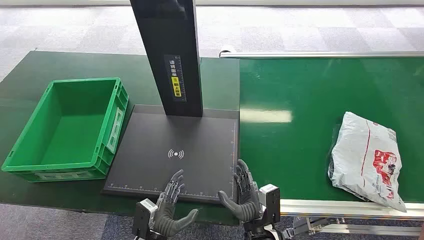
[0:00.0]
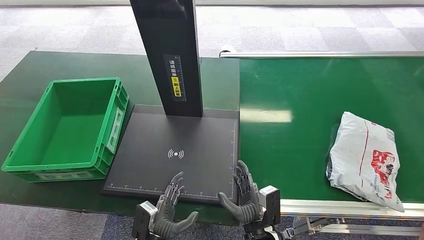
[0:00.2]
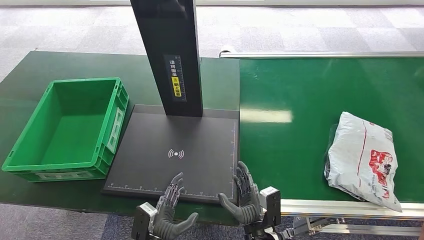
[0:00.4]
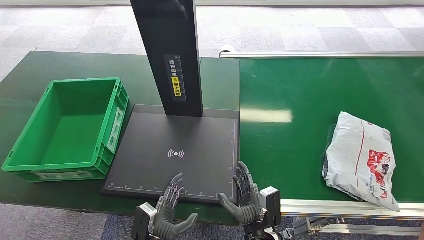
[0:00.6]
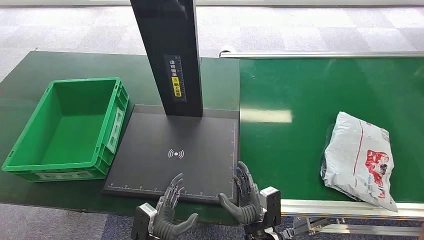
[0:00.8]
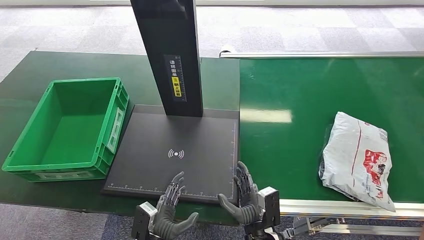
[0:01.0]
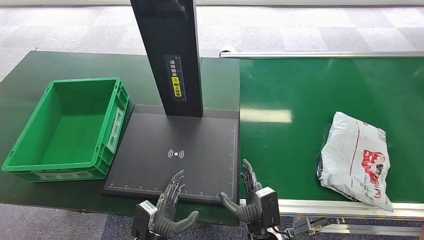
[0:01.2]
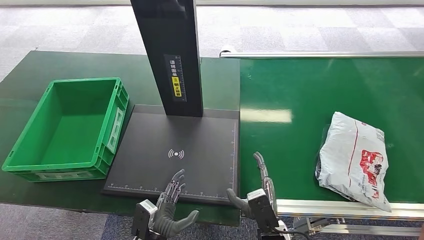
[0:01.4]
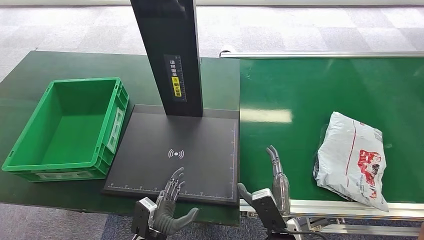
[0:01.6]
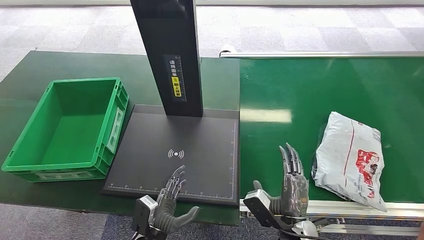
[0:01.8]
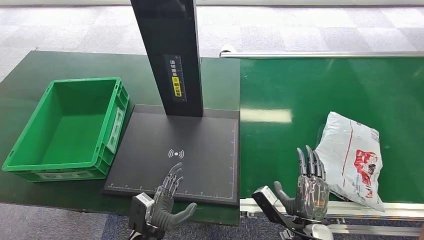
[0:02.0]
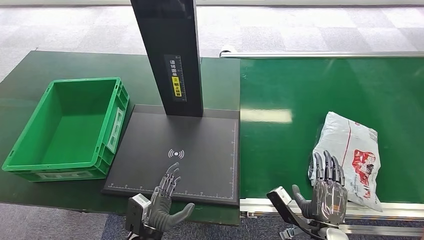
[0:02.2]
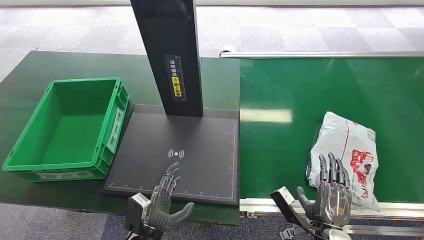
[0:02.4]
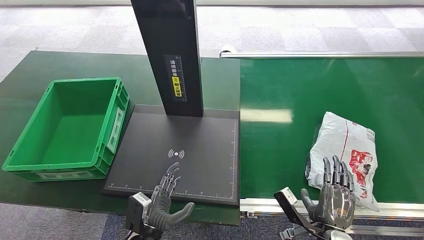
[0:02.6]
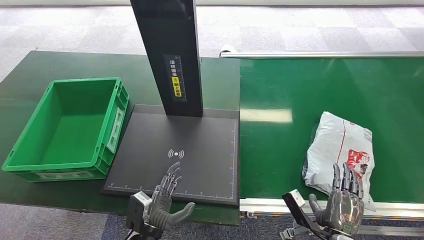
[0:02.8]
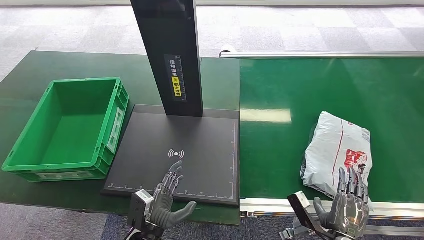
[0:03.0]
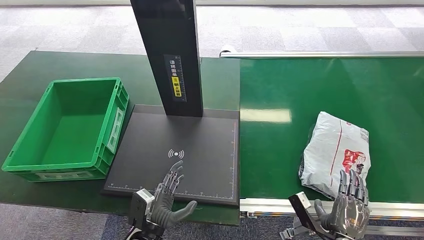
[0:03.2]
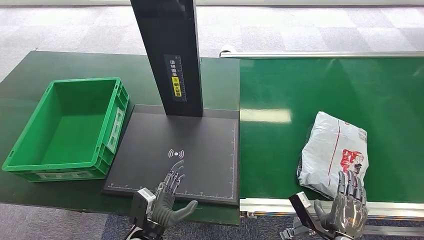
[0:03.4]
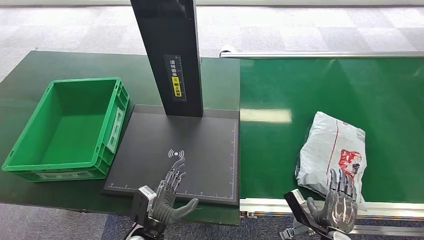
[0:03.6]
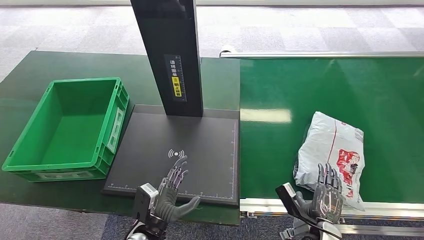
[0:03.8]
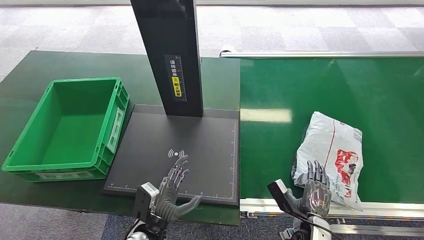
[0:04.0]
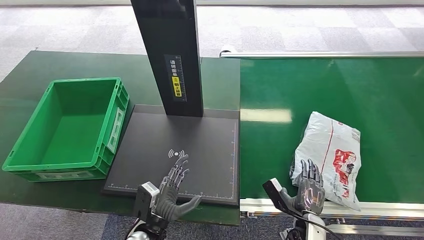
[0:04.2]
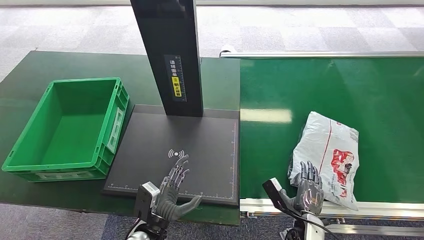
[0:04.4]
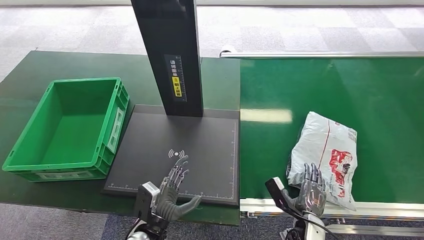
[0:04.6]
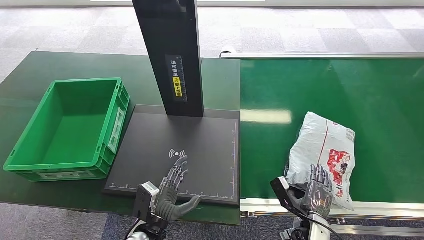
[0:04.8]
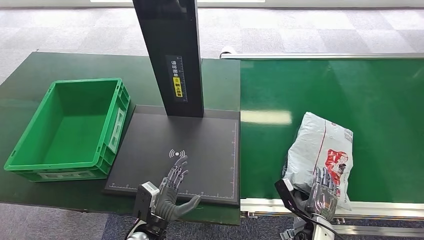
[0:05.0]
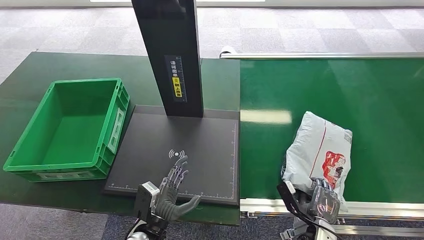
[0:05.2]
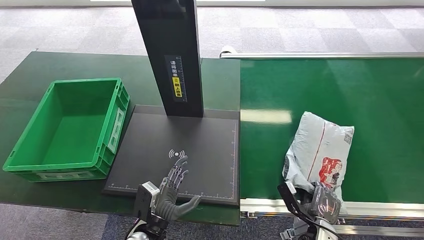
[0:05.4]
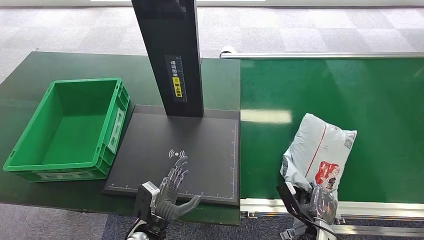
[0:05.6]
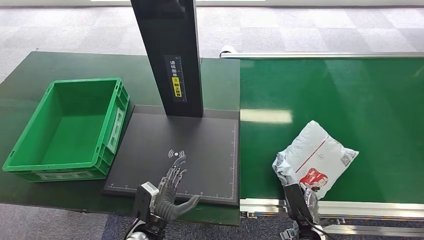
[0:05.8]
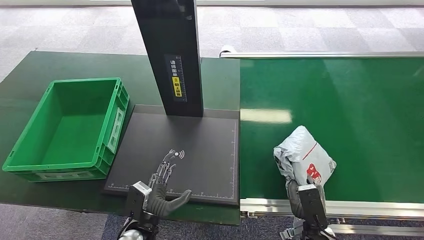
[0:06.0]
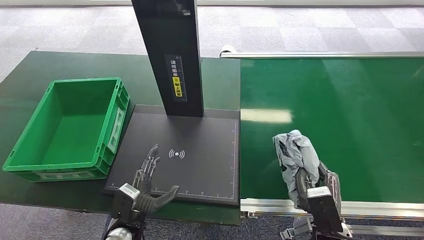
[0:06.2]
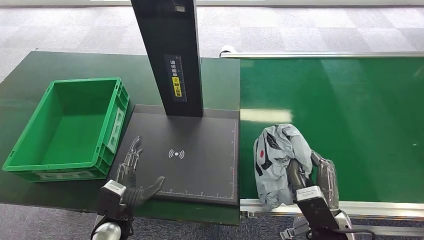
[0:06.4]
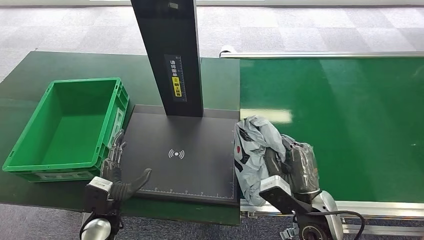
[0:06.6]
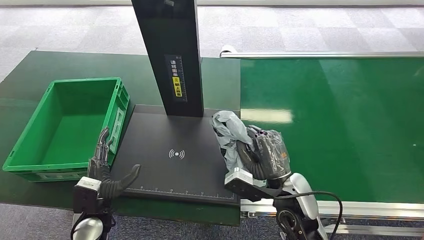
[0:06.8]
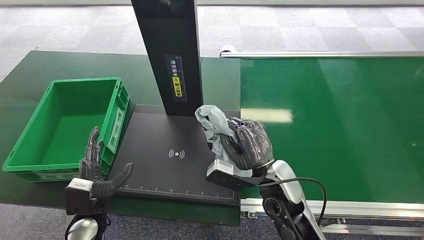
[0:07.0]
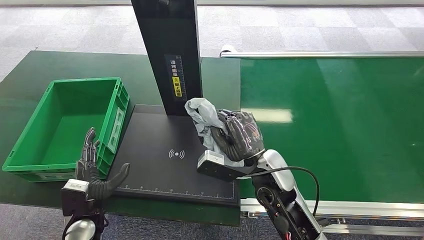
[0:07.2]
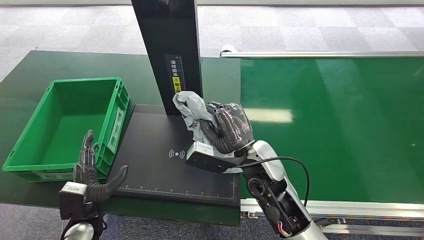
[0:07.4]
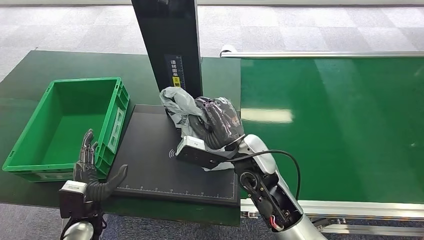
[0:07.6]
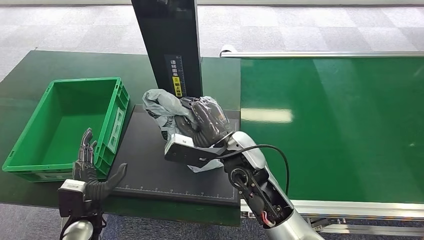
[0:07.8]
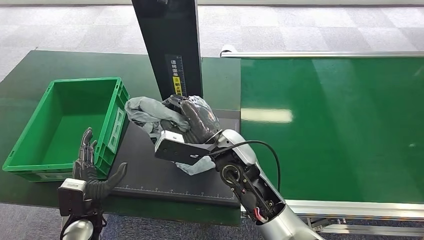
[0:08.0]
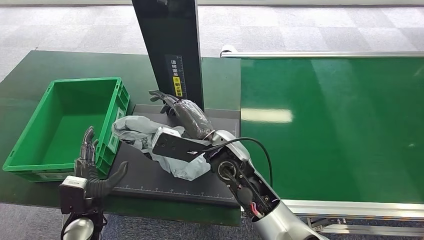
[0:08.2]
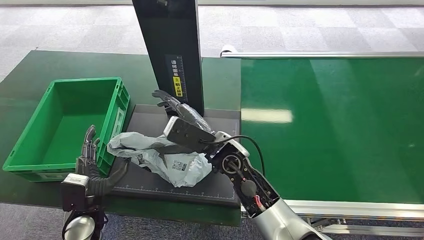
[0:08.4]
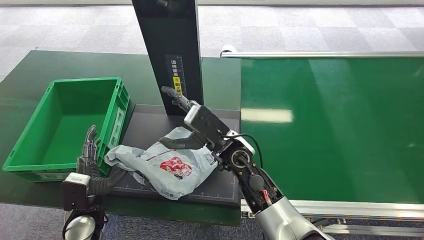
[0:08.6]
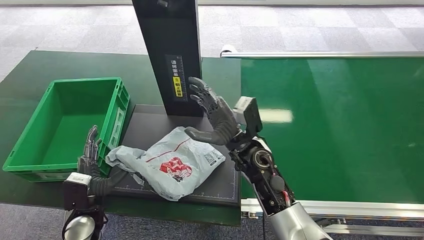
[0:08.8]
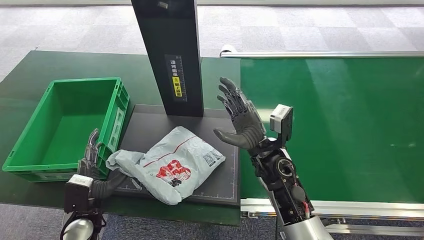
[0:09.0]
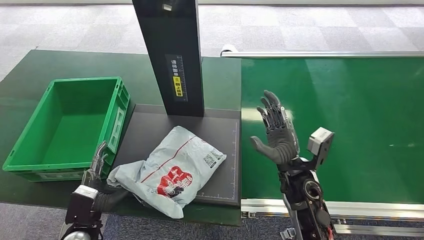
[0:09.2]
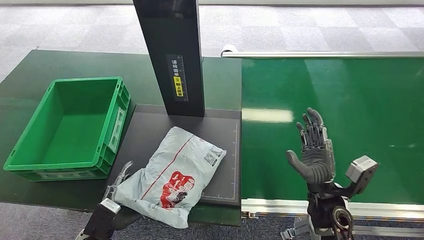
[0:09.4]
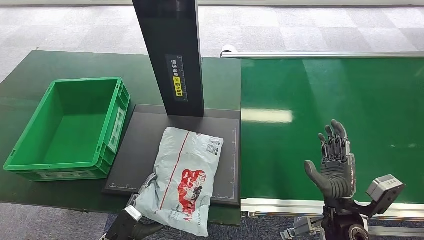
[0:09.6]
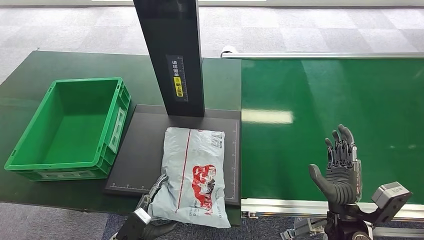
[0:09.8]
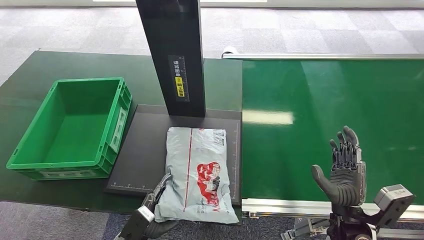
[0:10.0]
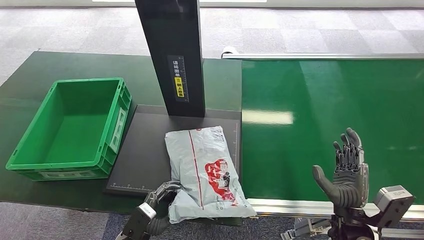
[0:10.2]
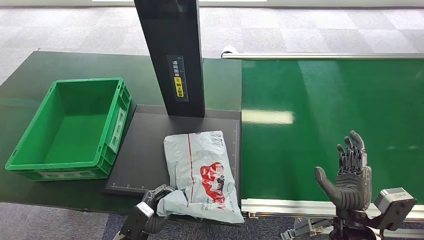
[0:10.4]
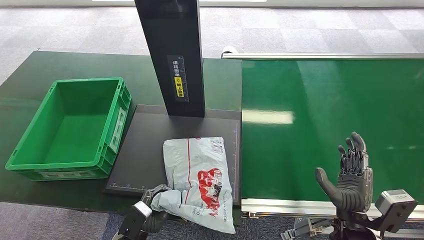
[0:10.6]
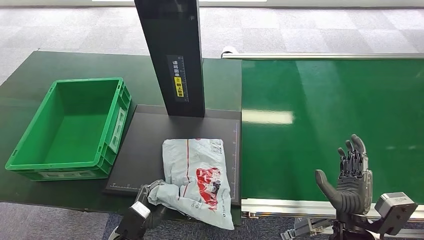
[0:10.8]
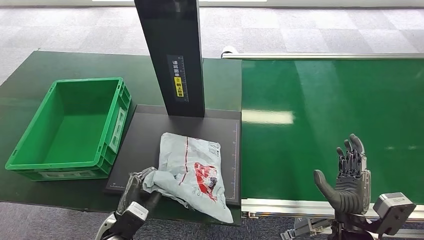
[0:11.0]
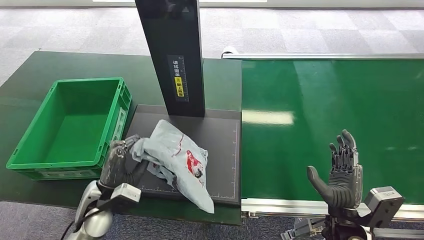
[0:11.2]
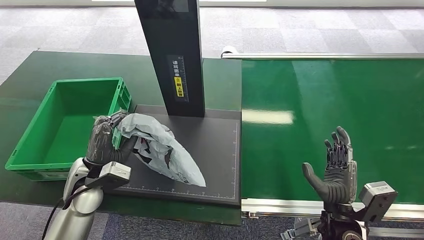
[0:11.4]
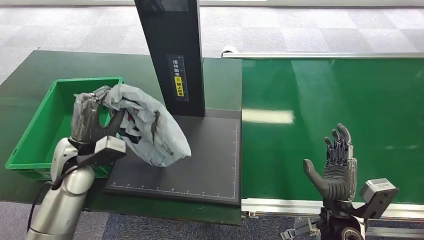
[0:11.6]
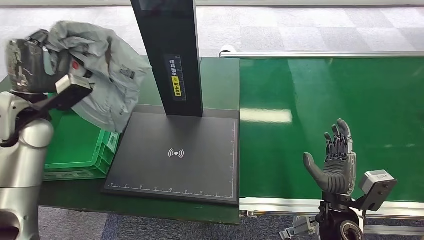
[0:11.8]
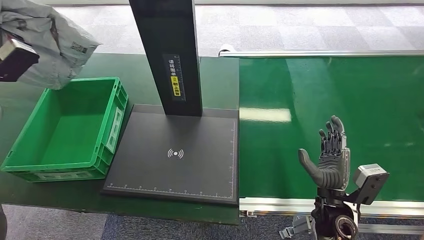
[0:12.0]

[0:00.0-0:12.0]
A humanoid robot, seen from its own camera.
Step, 0:00.0 to 0:06.2: Pick up the package from the conveyor belt.
Step, 0:06.4 to 0:09.8: Place the package onto the inbound machine.
0:01.6 to 0:03.0: The right hand goes some 15 cm to the right.
0:03.0 to 0:04.4: The right hand shifts some 10 cm downward and forward.
0:04.4 to 0:06.0: The right hand goes approximately 5 cm upward.
0:06.0 to 0:07.6: The right hand heads upward, to the left and forward, covering some 30 cm, while the left hand heads to the left, covering about 15 cm.
0:07.6 to 0:09.0: The right hand travels to the right by some 5 cm.

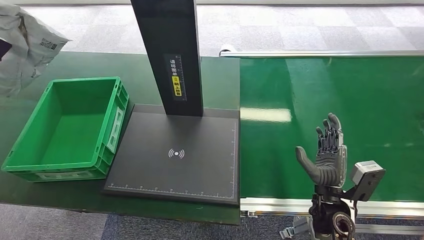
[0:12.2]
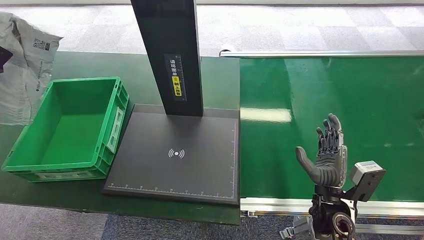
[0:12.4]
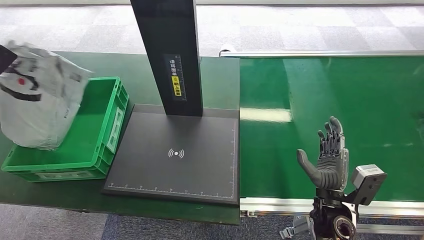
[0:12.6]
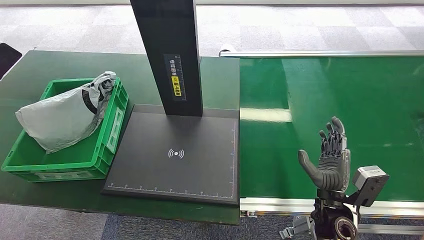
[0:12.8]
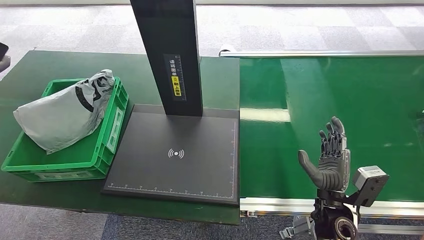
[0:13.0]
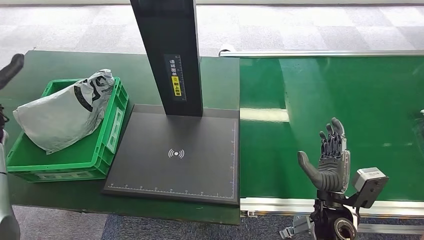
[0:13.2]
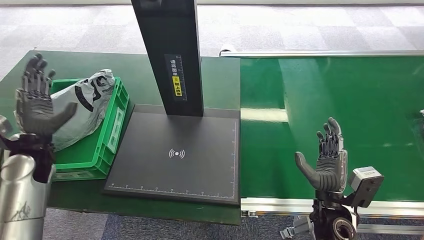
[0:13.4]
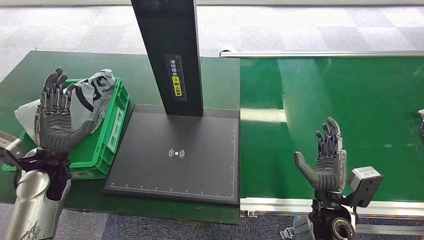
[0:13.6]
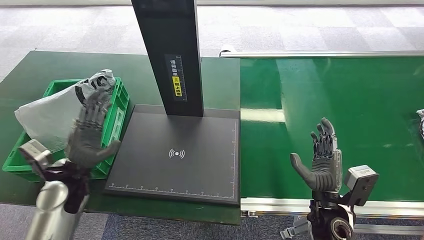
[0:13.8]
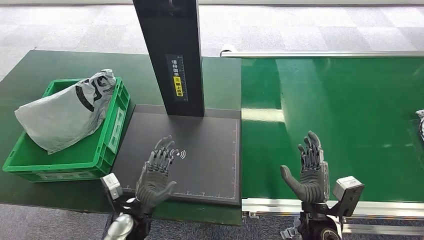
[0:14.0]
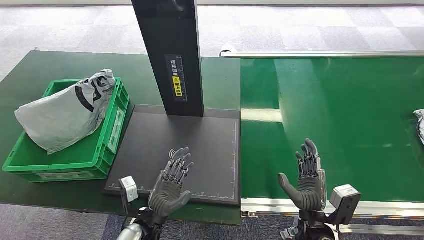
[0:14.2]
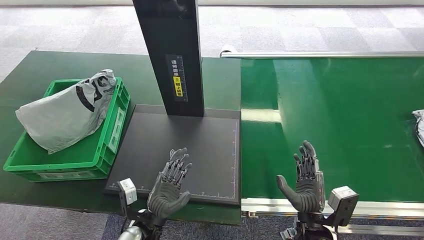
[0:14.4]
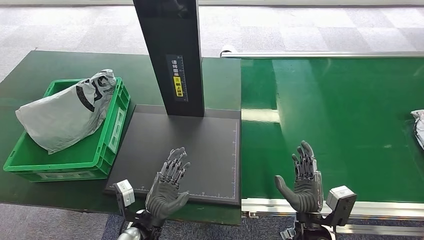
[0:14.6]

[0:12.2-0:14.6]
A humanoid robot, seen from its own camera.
Step, 0:12.6 to 0:14.6: Place the package into the parcel locker.
0:12.2 to 0:13.4: The left hand goes approximately 20 cm downward and to the right.
0:13.4 to 0:14.6: The left hand goes about 35 cm to the right, downward and backward. The right hand changes place by some 5 cm.
